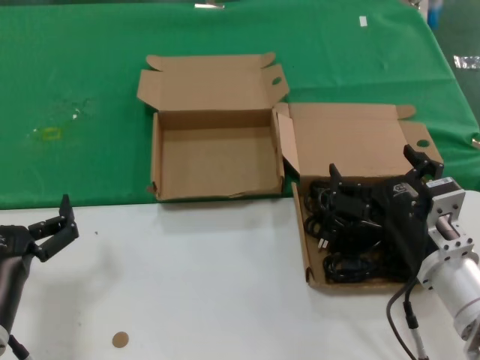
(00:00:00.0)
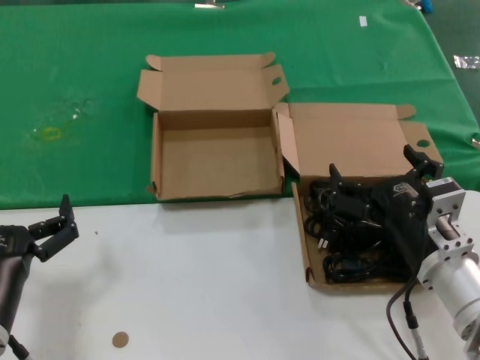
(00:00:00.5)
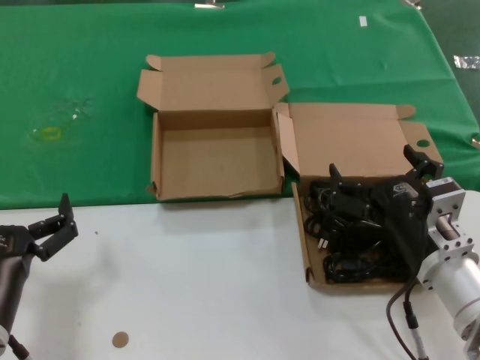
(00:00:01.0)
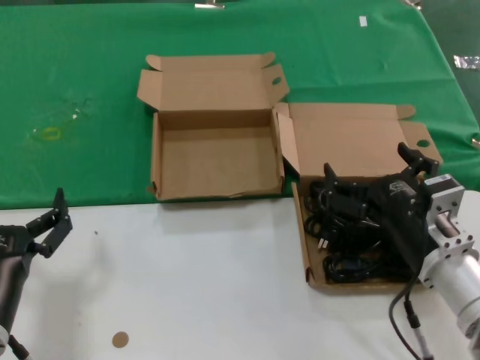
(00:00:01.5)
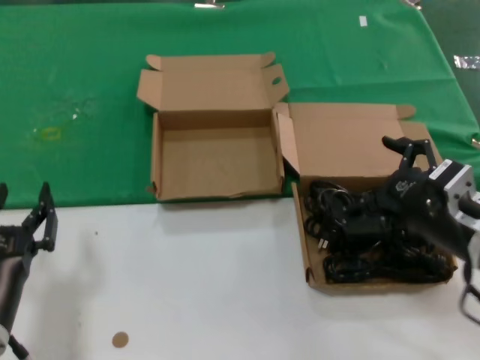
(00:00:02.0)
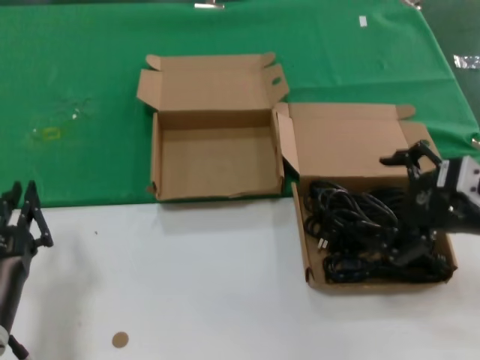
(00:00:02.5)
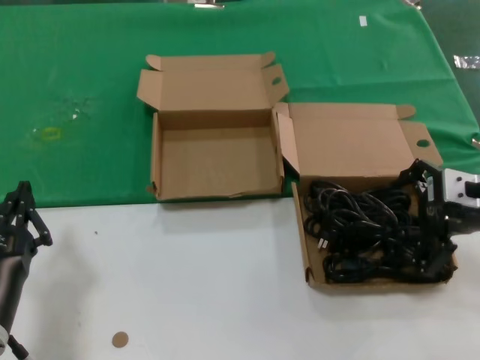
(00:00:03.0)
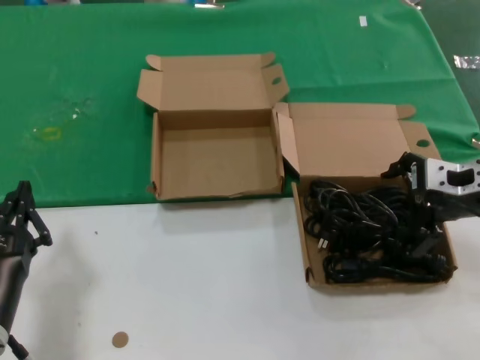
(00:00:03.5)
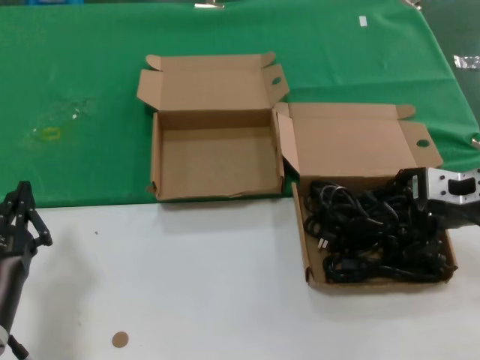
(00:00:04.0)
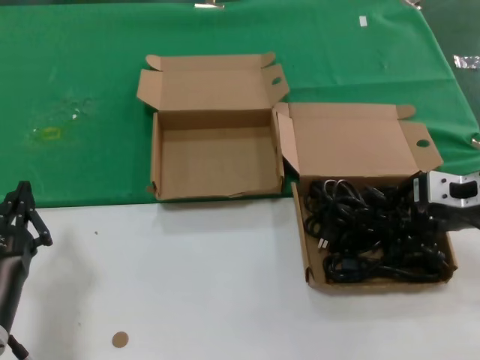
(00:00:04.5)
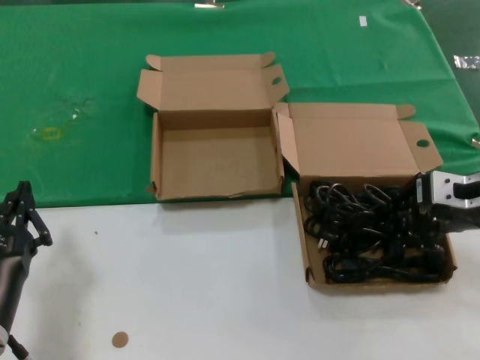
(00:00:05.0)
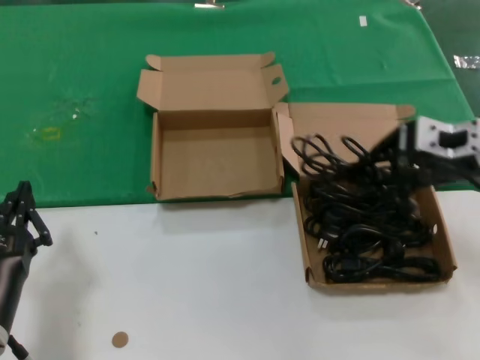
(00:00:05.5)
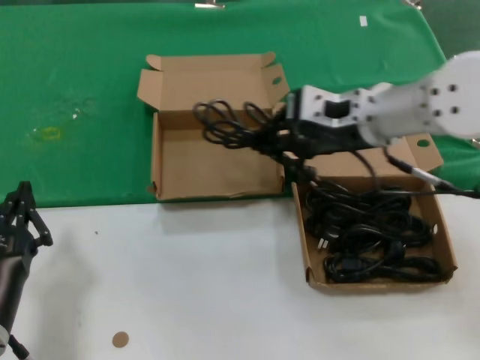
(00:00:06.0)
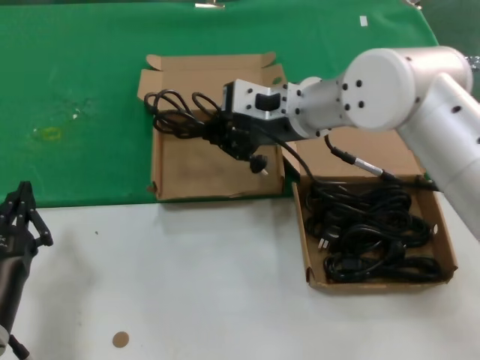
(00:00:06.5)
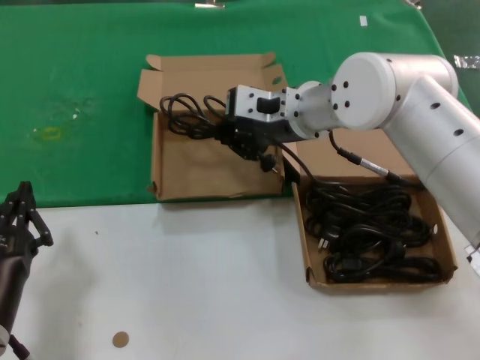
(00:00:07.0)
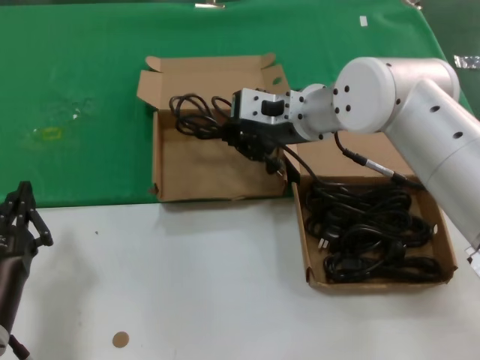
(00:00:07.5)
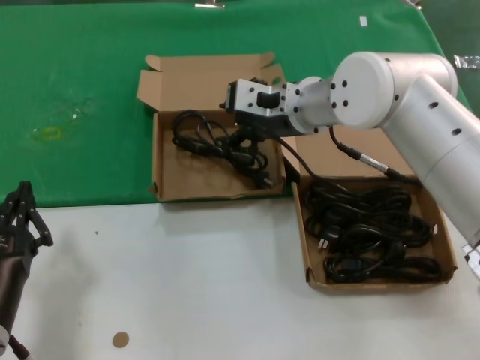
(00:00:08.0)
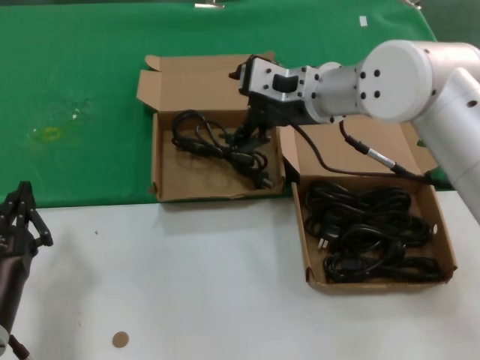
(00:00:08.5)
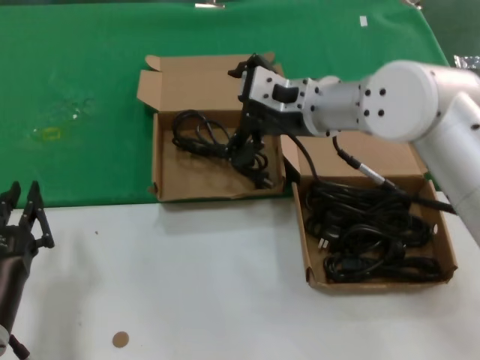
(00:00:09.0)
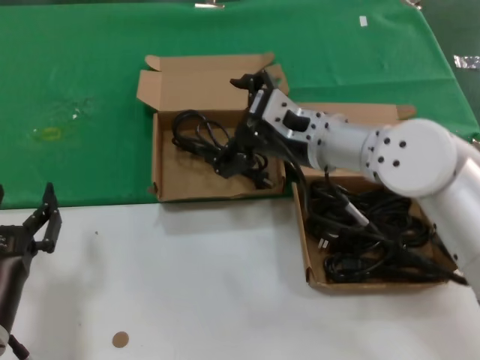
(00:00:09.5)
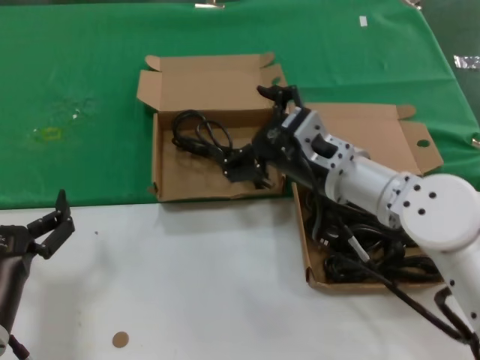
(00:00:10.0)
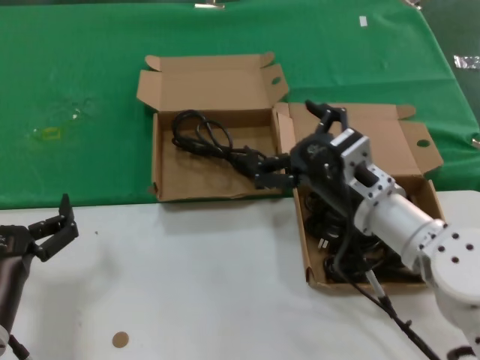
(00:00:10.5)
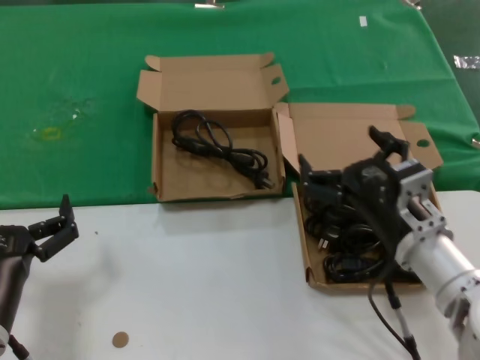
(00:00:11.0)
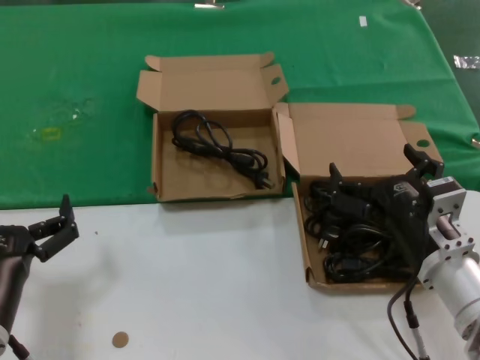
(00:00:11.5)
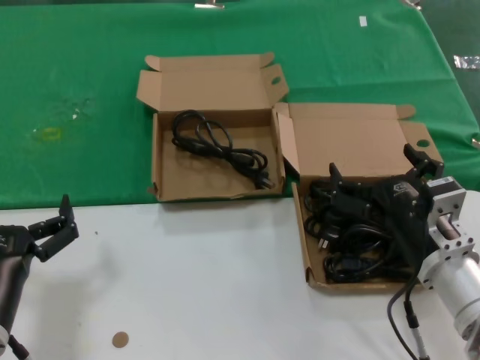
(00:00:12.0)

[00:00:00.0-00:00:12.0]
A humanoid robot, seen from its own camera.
Task of the whole recording: take the parts from the box containing them and put them into an empty box.
Step, 00:00:00.0 to 00:00:04.5: Grasp the data cable.
Step, 00:00:05.0 to 00:00:08.5: Place the data cable in the another box.
00:00:00.0 to 00:00:02.0: The right hand moves upward, roughly 5 cm.
00:00:02.0 to 00:00:04.0: The right hand is displaced forward, upward and to the right by about 10 cm.
00:00:04.0 to 00:00:06.0: The right hand shifts about 15 cm to the left and upward.
00:00:06.0 to 00:00:08.0: The right hand travels to the left and forward by about 10 cm.
00:00:08.0 to 00:00:10.0: The right hand heads backward and downward, covering about 10 cm.
00:00:10.0 to 00:00:12.0: The right hand travels backward, downward and to the right by roughly 15 cm.

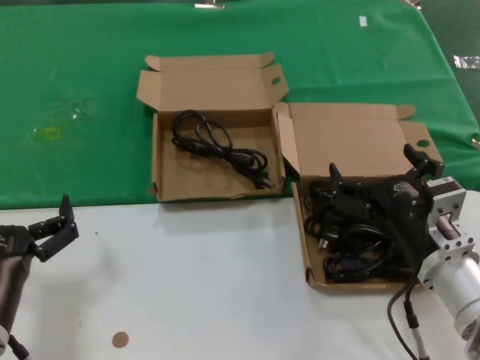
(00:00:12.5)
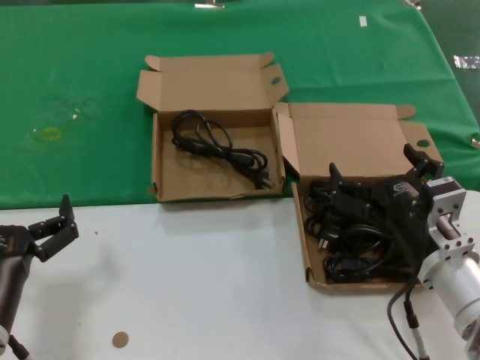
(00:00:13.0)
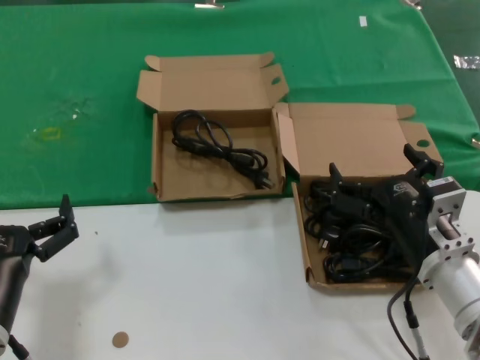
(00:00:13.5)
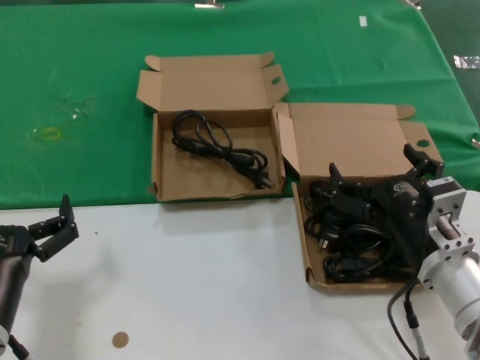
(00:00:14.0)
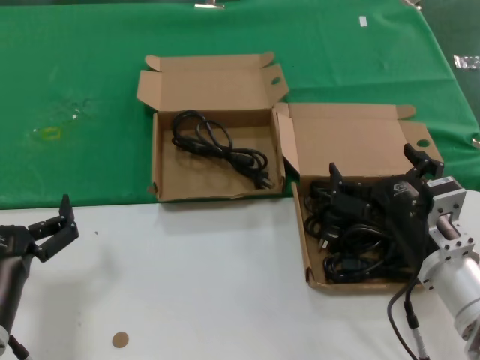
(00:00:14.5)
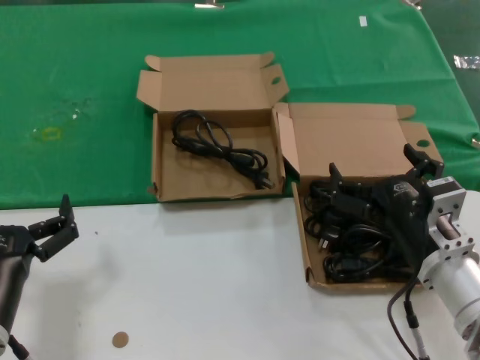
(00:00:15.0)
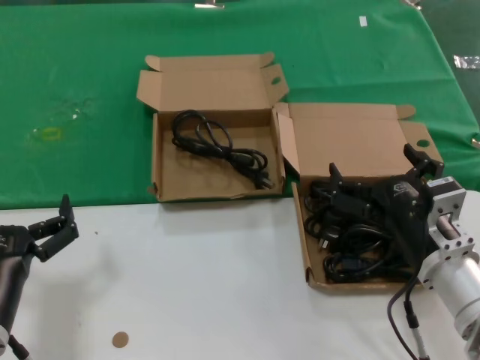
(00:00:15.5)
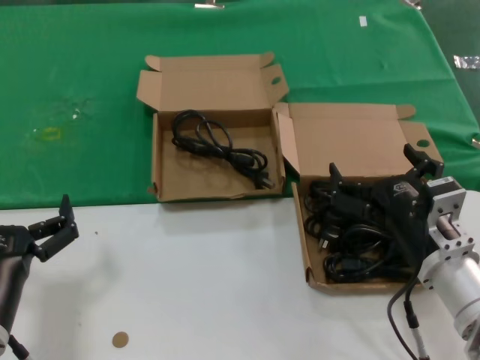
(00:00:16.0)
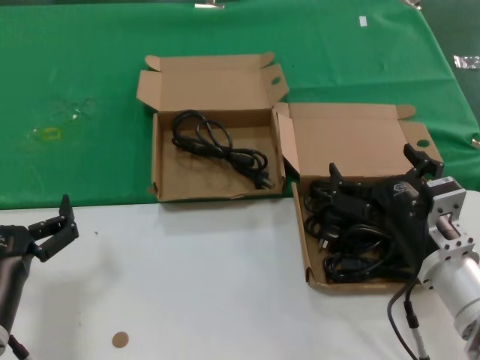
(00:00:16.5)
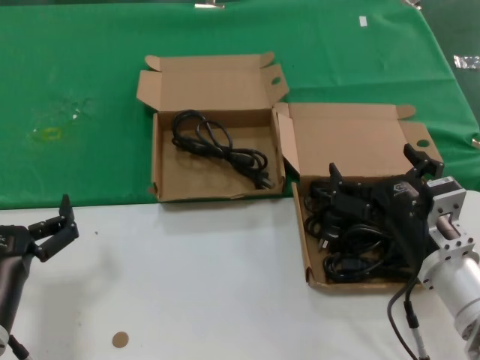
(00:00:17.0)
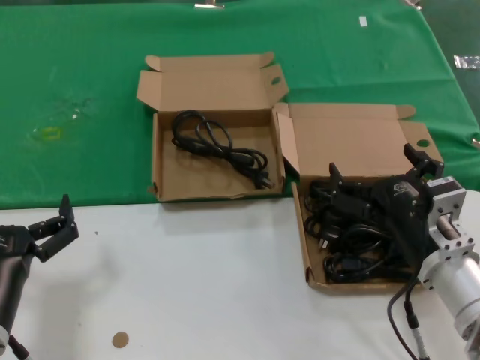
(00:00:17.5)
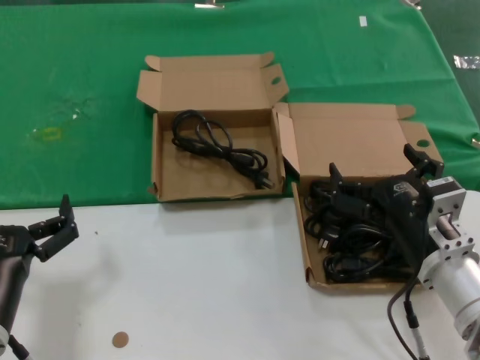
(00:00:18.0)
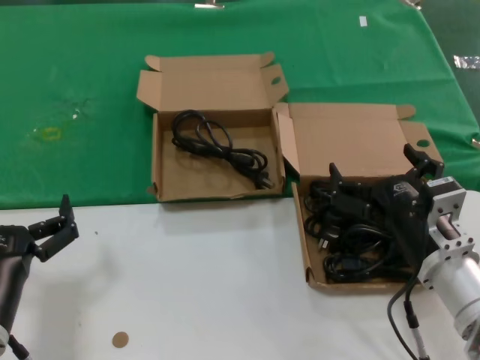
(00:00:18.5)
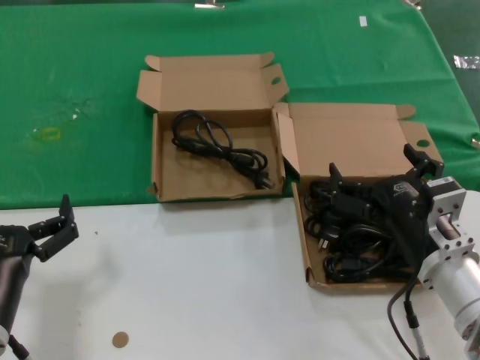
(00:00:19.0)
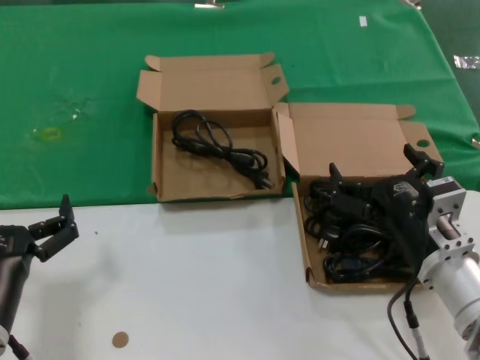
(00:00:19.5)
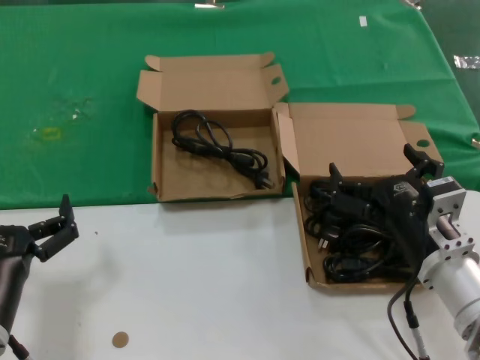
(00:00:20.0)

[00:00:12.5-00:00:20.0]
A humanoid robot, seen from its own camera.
Task of the whole recording: take the parts from the box containing them and put them into an empty box.
00:00:12.5 to 00:00:20.0: Both hands stay about where they are.
